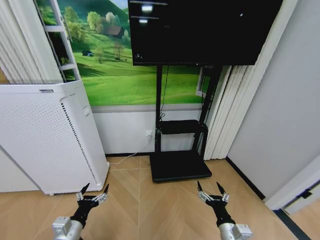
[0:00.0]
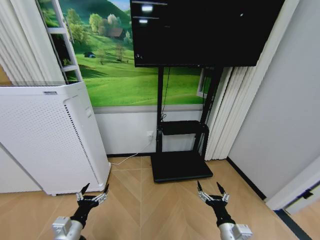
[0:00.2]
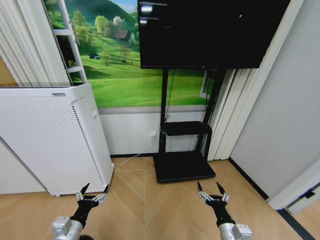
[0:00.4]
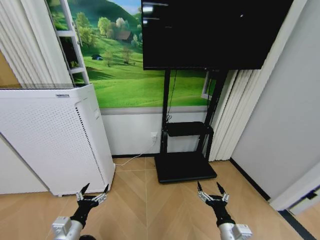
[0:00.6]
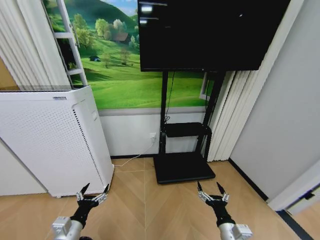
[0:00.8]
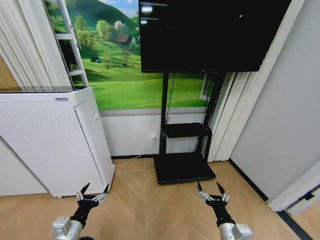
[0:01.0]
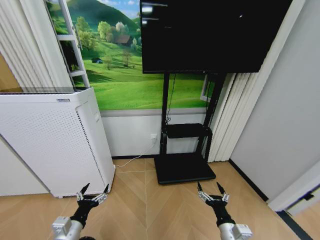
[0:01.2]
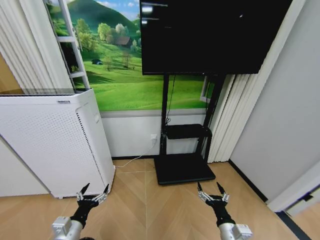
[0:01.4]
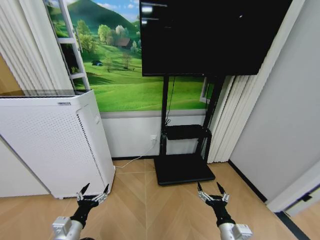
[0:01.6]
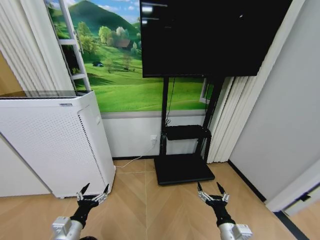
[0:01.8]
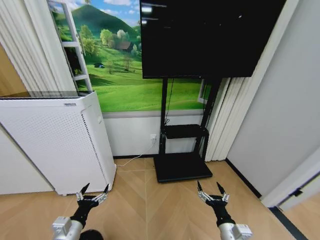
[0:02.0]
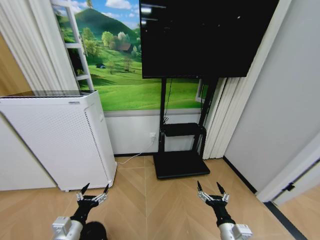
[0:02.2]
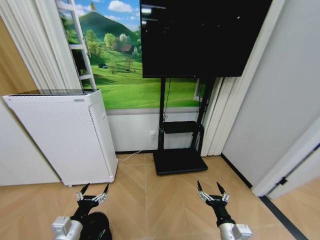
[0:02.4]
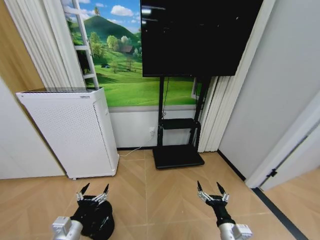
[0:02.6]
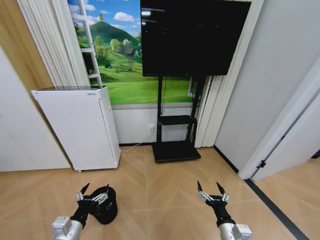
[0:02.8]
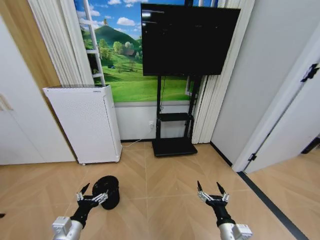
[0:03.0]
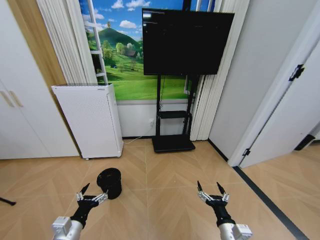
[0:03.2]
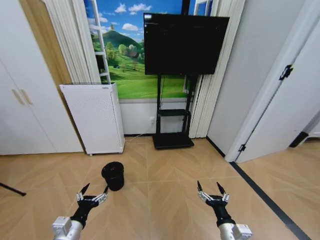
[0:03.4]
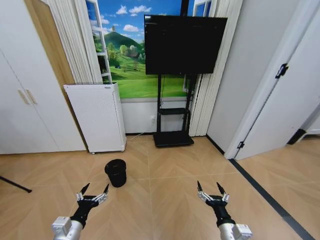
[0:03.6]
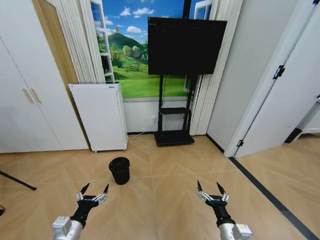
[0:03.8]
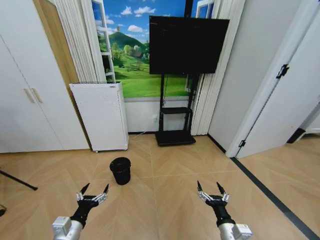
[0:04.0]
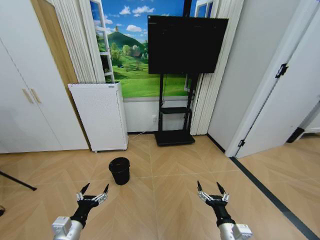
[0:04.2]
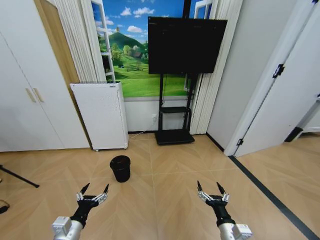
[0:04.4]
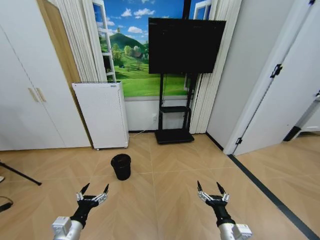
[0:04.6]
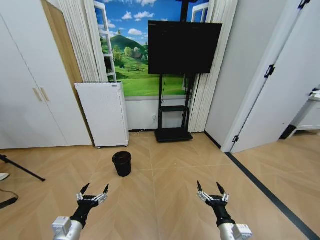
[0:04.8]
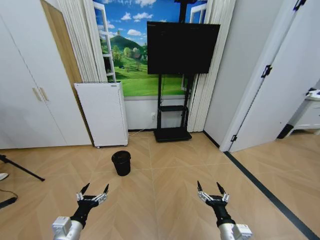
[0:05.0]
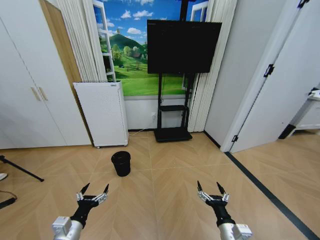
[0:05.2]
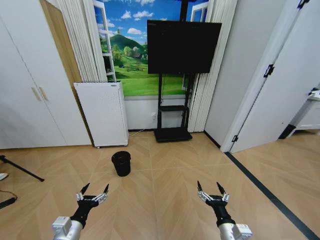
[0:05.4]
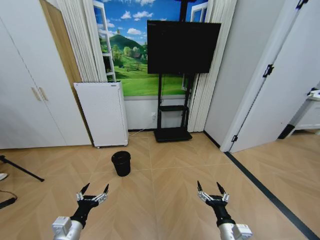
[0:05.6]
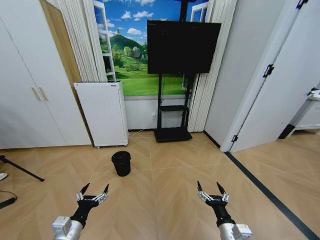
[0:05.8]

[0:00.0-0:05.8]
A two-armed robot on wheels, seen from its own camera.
Task of the whole recording: Pick up the trash bin and place the garbage on the floor into it.
0:04.4 to 0:05.8: Both grippers stay about where they are.
